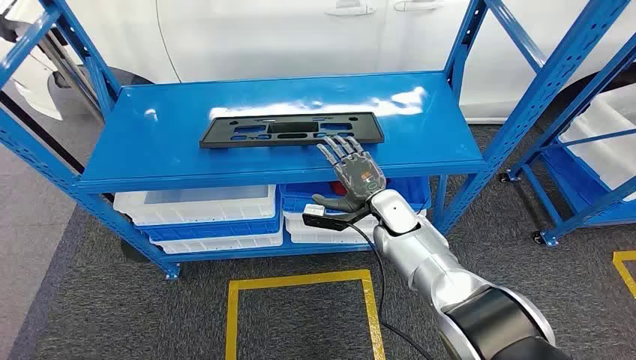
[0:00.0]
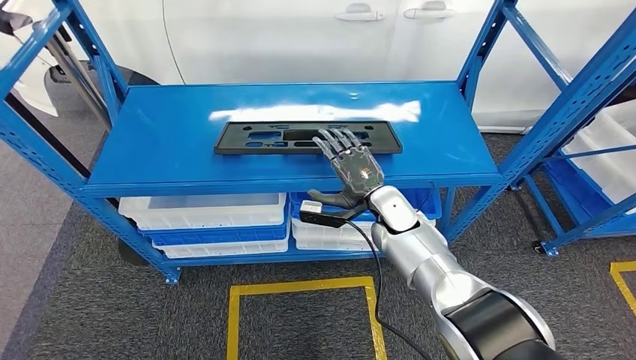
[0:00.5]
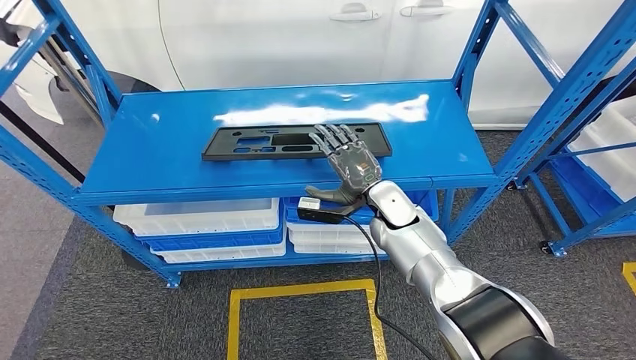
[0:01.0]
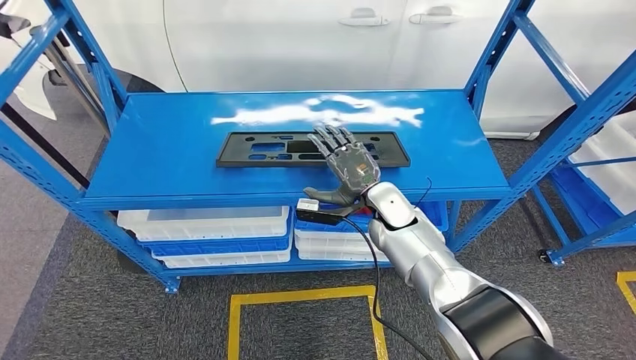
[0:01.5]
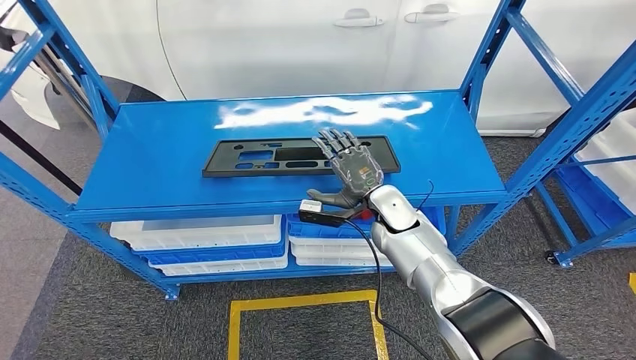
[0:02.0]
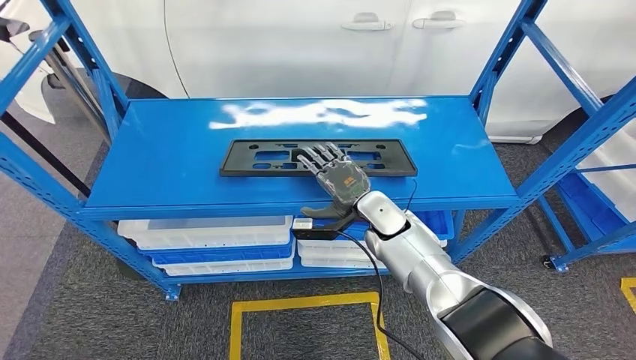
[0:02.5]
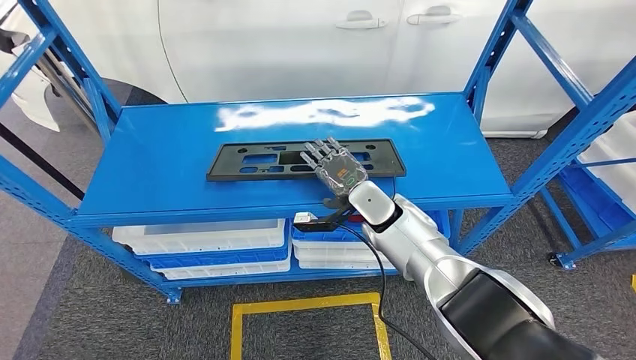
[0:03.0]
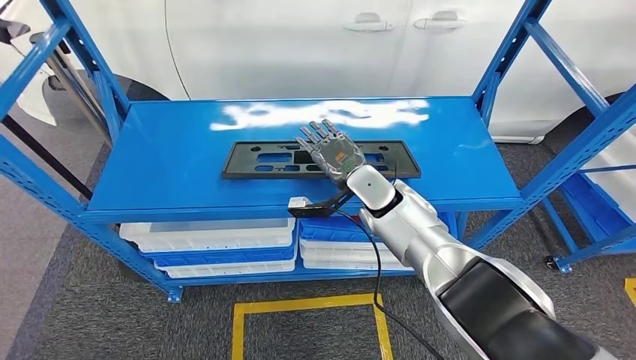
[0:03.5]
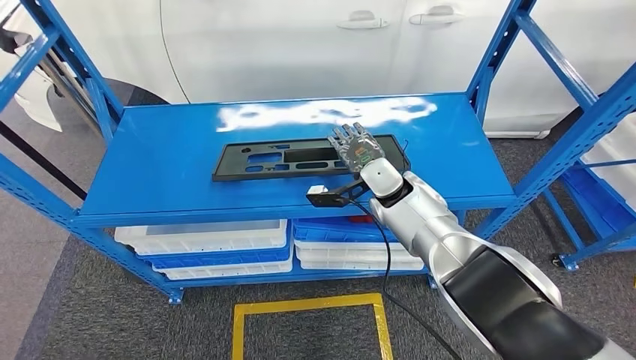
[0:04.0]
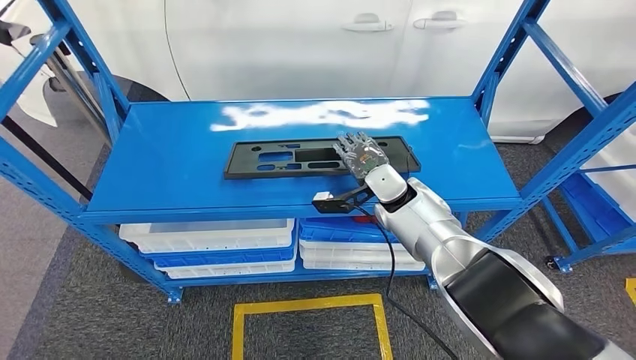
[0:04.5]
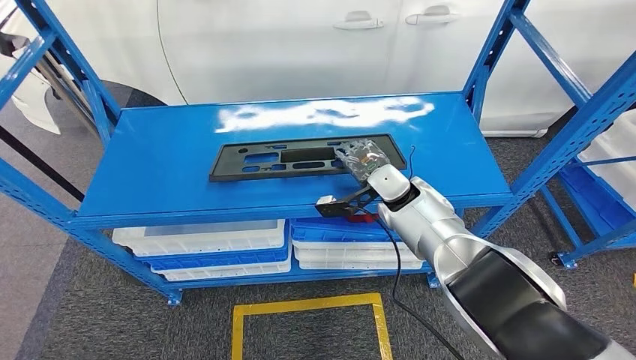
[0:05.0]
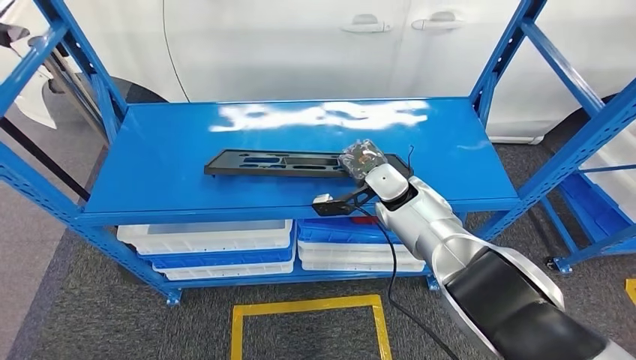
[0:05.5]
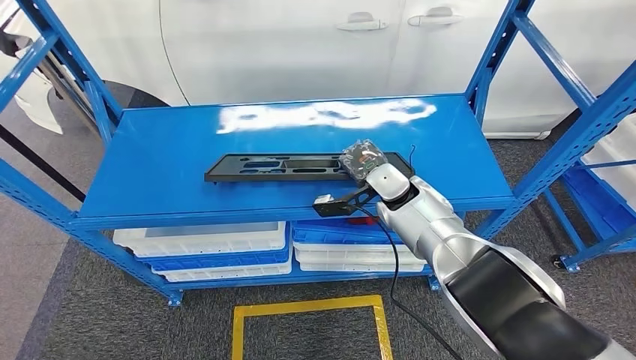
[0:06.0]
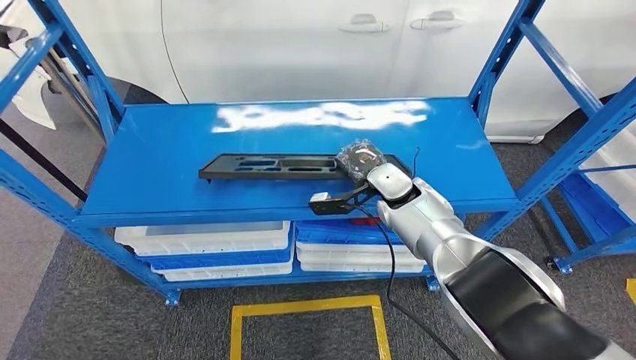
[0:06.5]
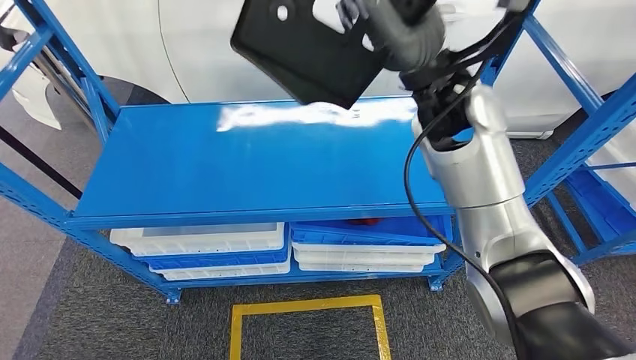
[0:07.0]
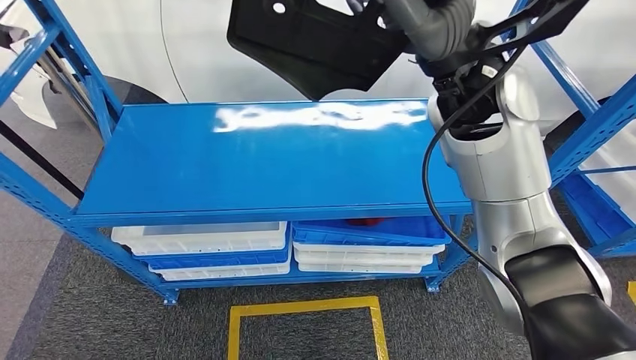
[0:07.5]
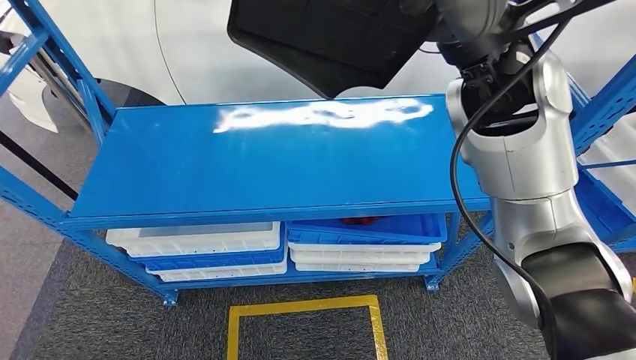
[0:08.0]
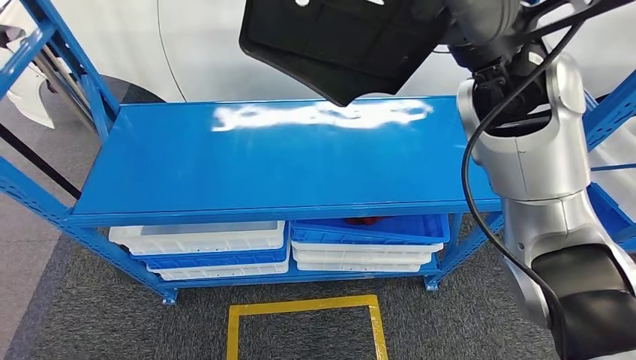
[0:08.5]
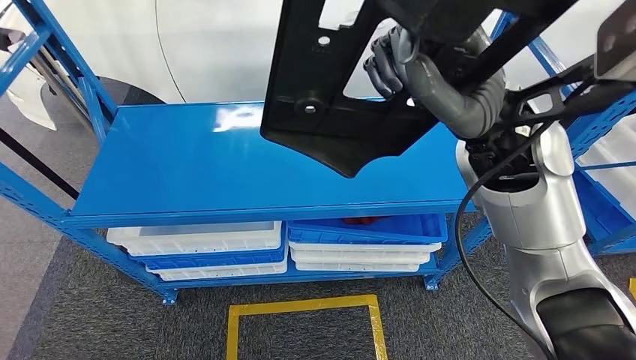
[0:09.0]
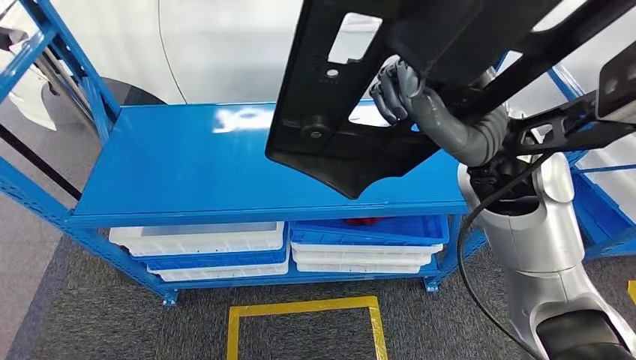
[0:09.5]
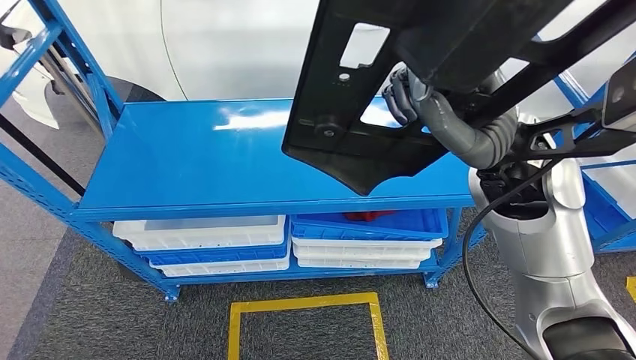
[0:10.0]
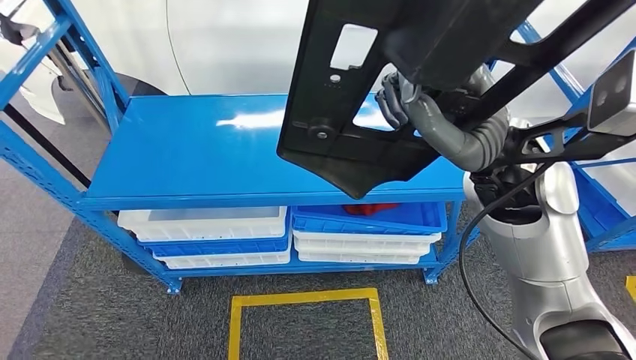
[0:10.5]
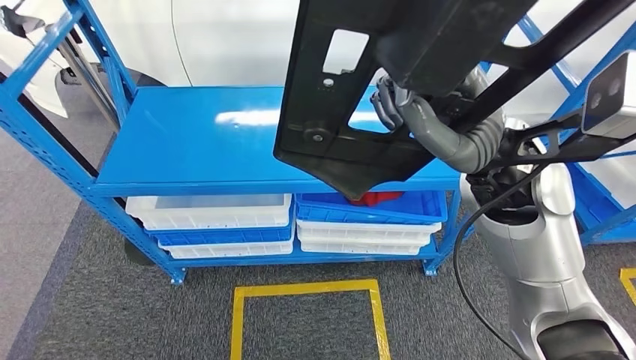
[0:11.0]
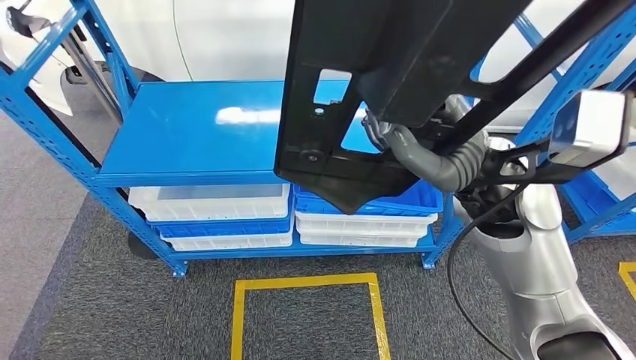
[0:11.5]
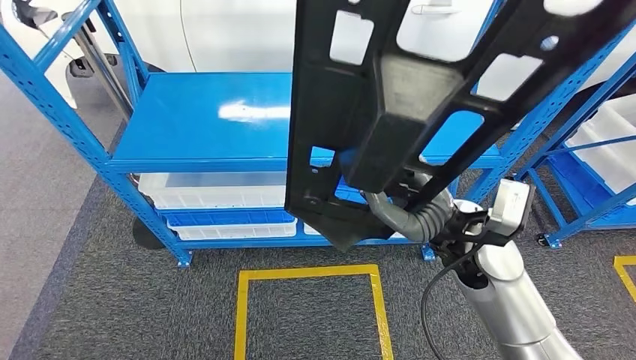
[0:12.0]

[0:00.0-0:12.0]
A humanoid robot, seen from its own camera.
Step, 0:00.0 to 0:08.5: Pick up the large material from the shelf.
0:04.0 to 0:06.0: There are only small adjustments of the hands.

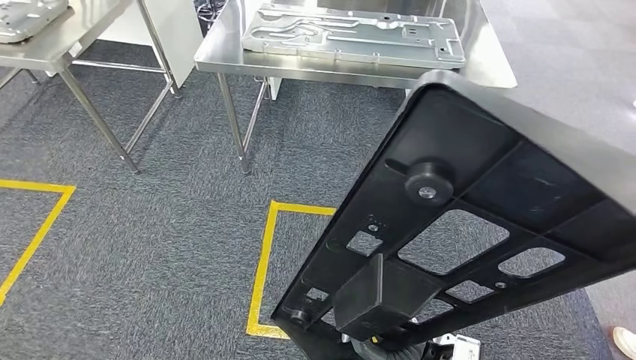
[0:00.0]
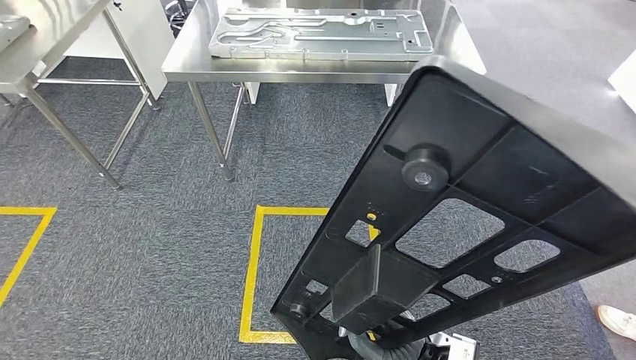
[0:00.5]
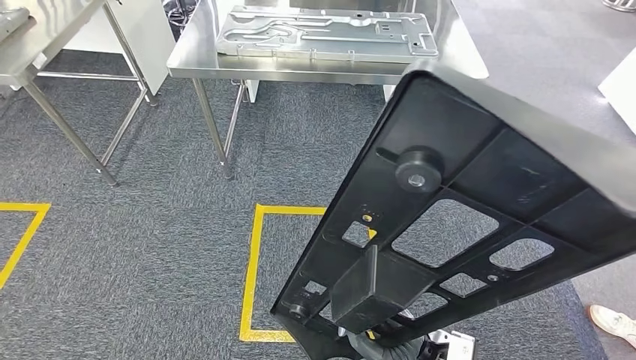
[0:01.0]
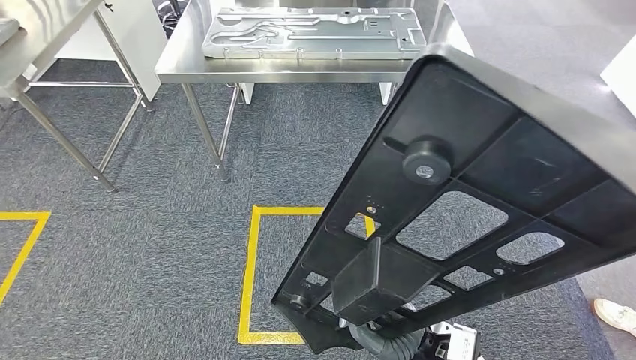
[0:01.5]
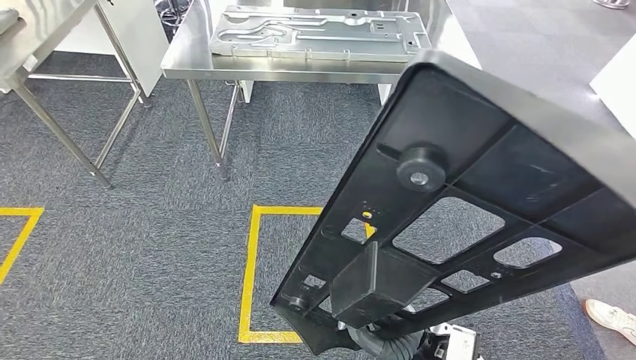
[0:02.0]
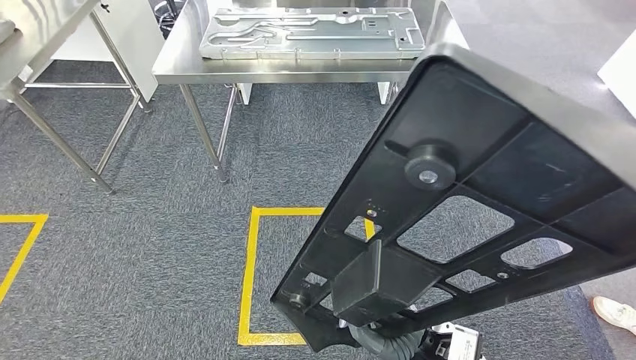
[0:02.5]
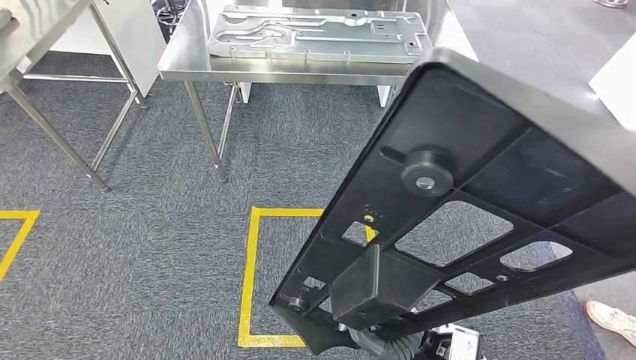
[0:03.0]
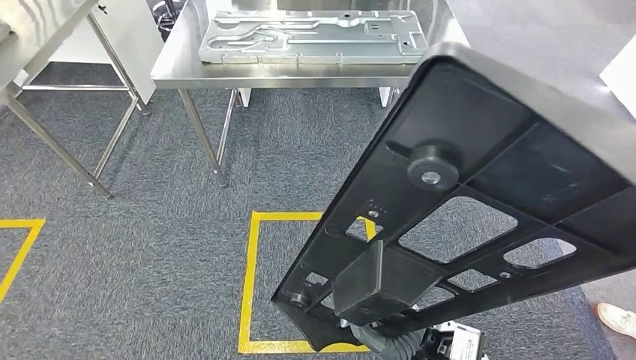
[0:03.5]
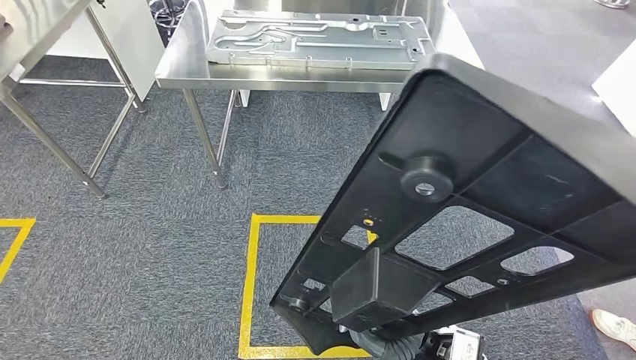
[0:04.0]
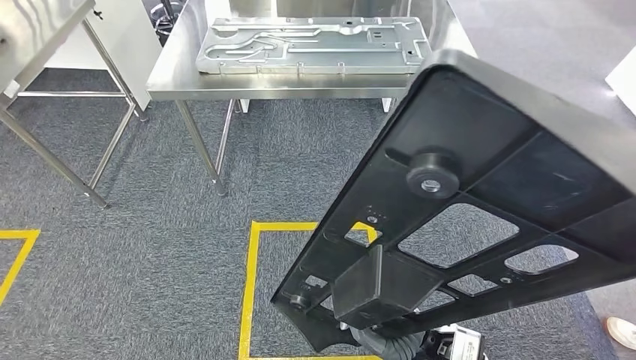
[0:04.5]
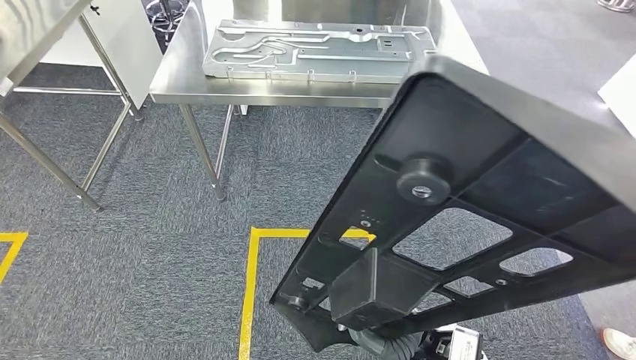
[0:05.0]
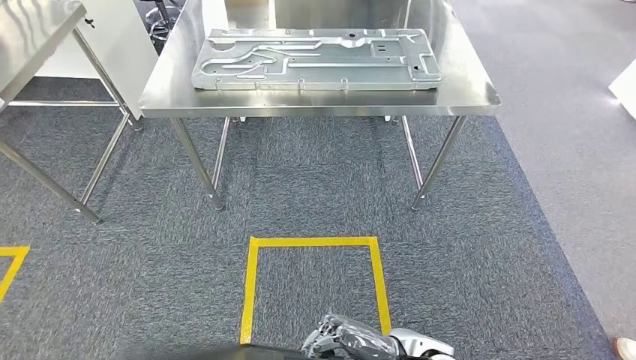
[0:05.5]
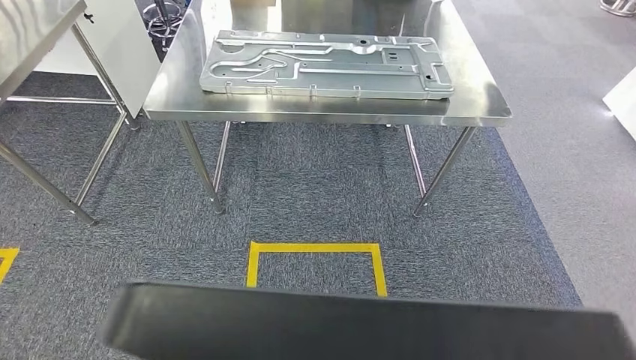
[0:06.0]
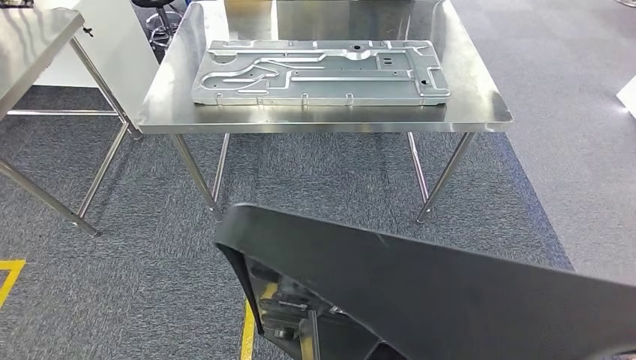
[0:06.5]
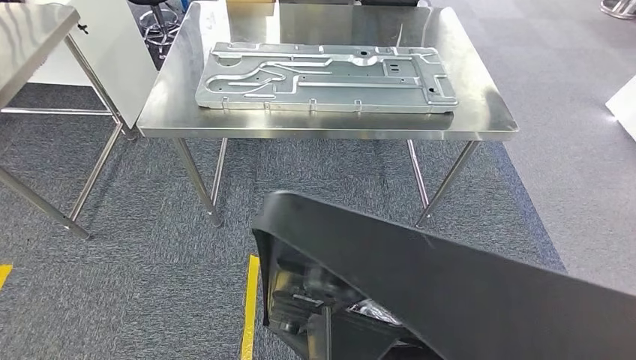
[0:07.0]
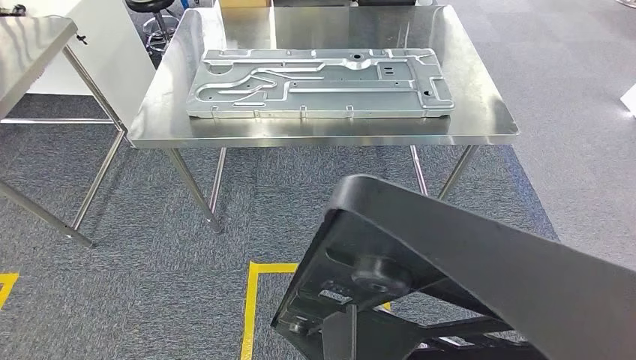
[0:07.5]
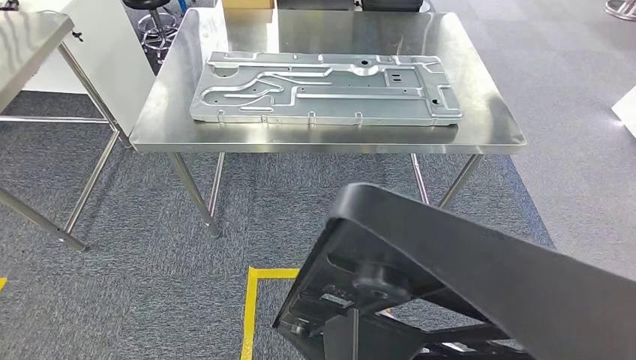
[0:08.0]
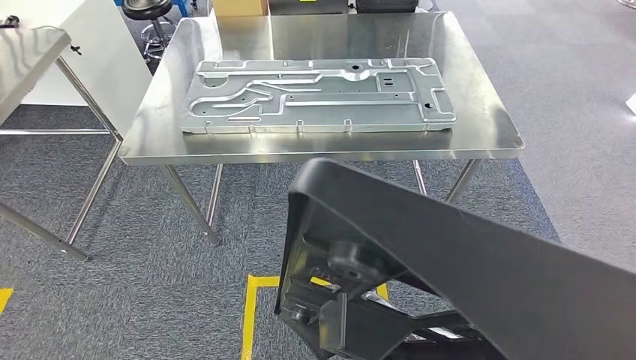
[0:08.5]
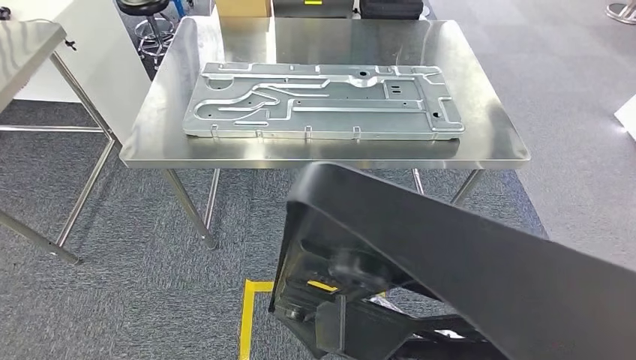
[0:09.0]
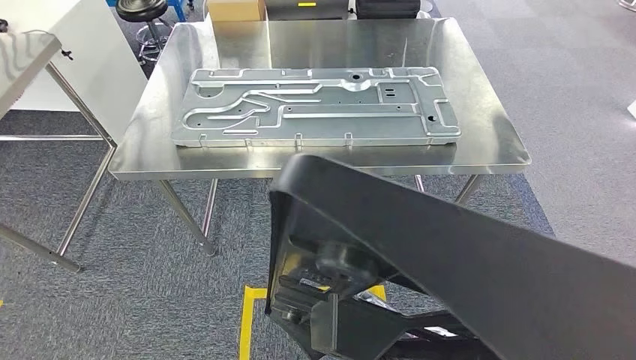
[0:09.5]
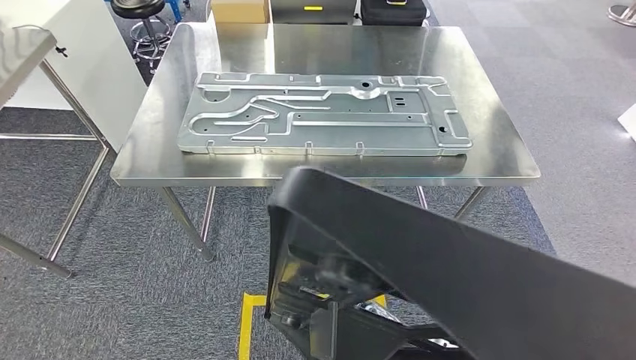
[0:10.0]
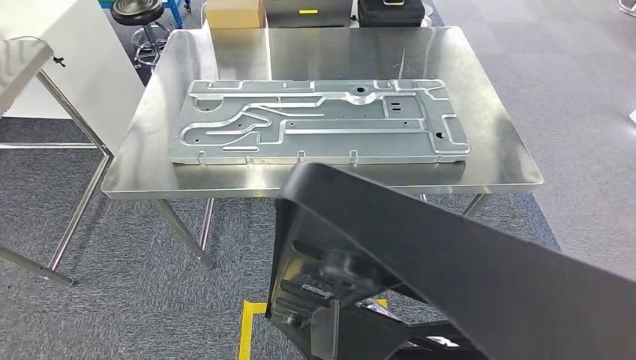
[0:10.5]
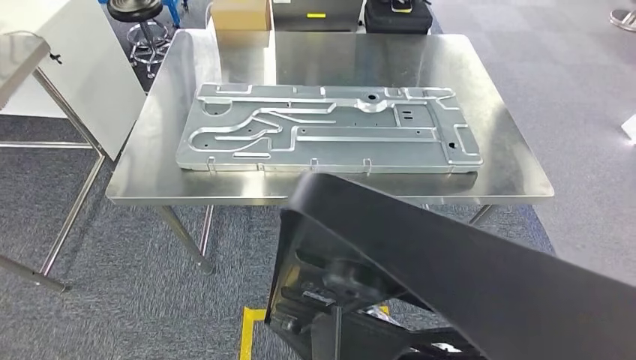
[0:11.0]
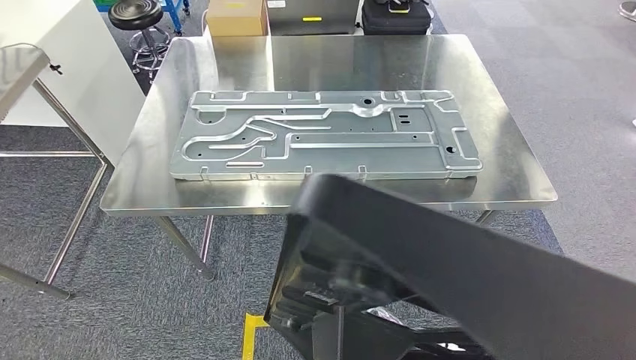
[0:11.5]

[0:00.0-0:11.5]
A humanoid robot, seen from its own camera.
0:02.0 to 0:04.0: Neither hand changes place.
